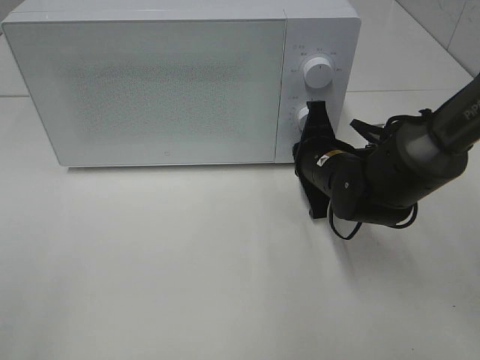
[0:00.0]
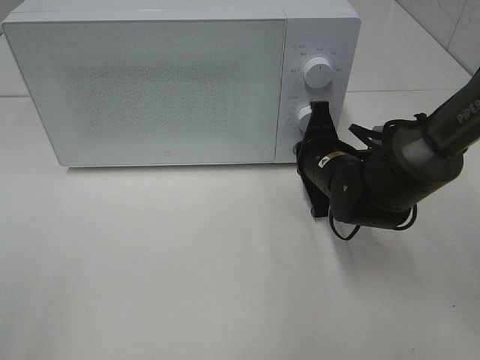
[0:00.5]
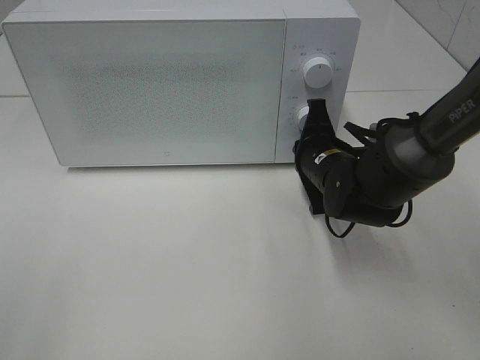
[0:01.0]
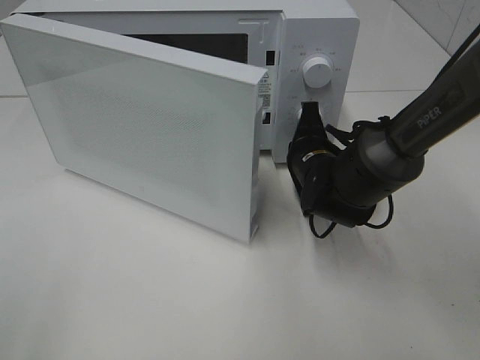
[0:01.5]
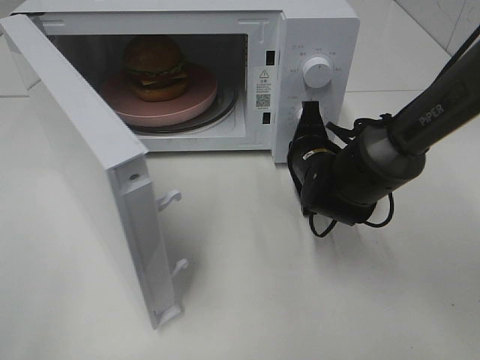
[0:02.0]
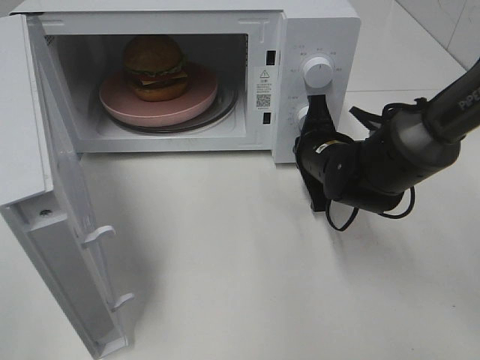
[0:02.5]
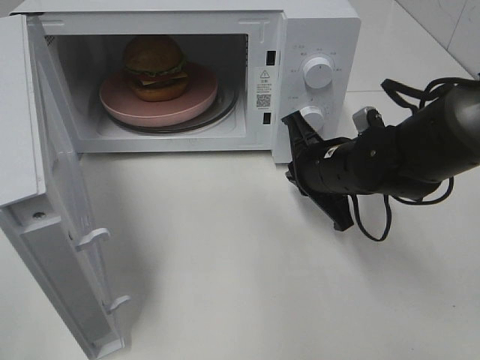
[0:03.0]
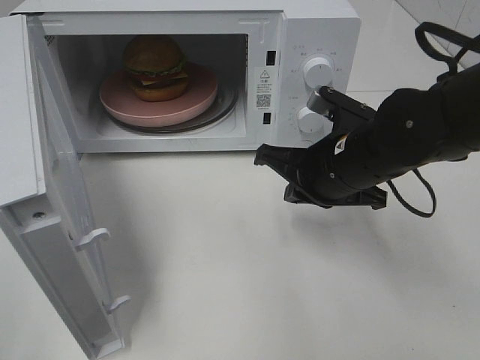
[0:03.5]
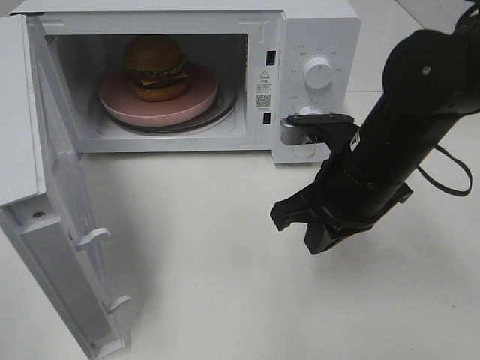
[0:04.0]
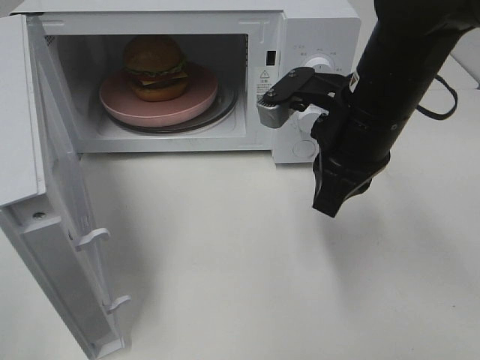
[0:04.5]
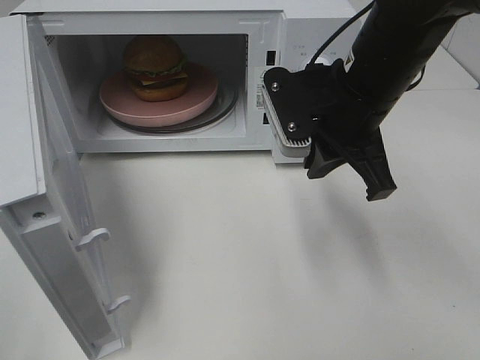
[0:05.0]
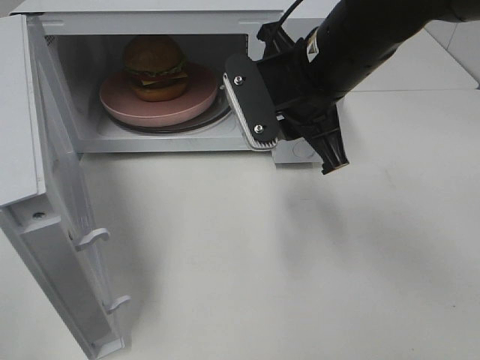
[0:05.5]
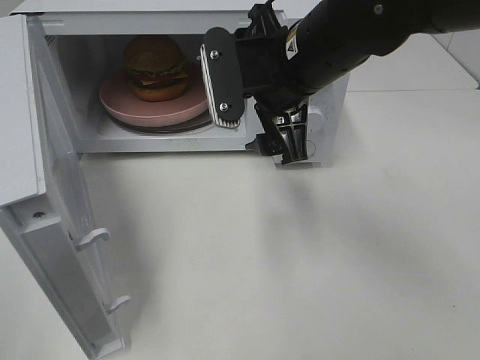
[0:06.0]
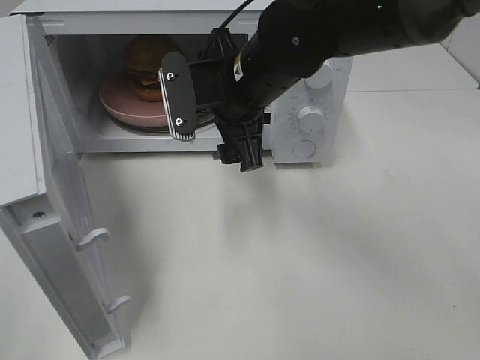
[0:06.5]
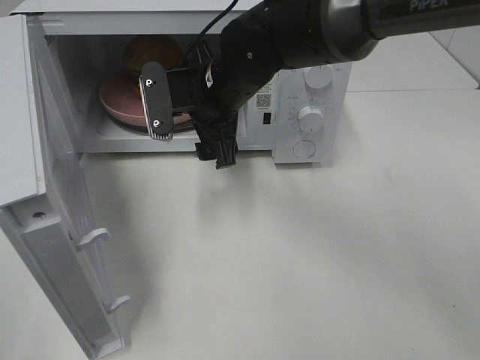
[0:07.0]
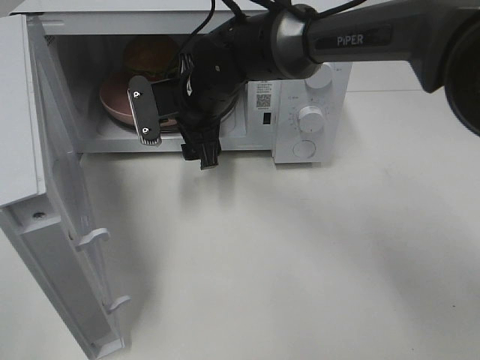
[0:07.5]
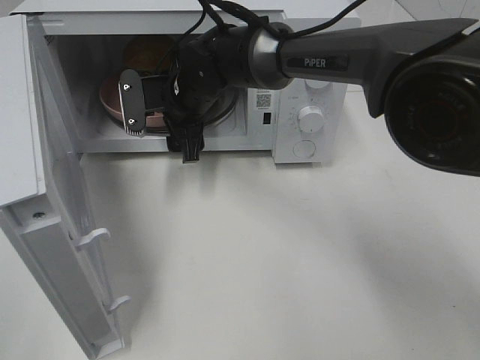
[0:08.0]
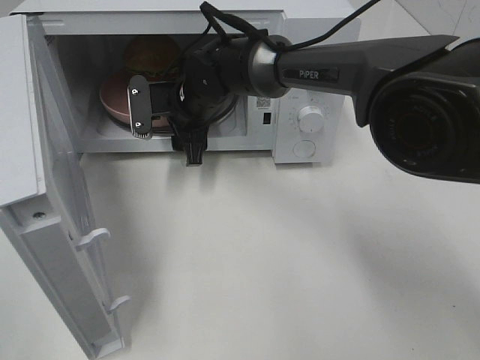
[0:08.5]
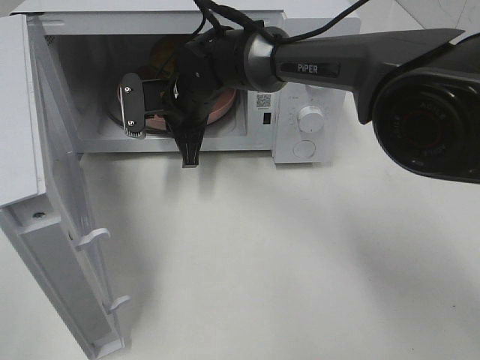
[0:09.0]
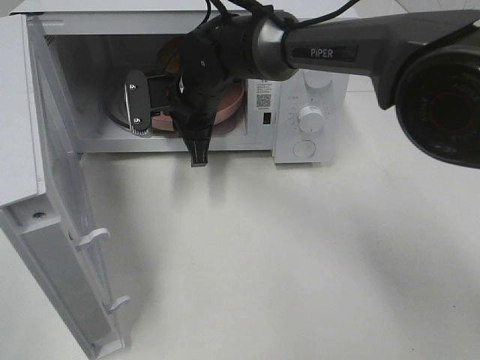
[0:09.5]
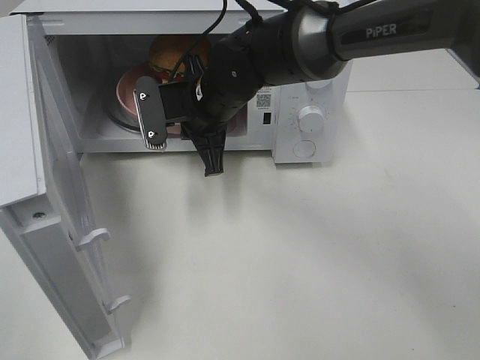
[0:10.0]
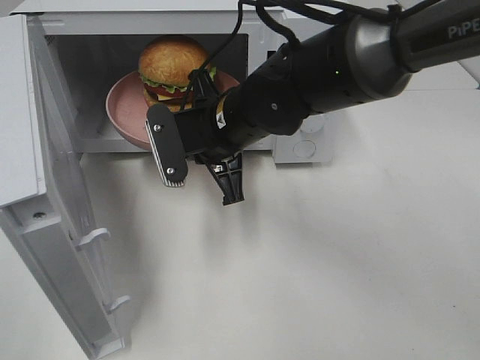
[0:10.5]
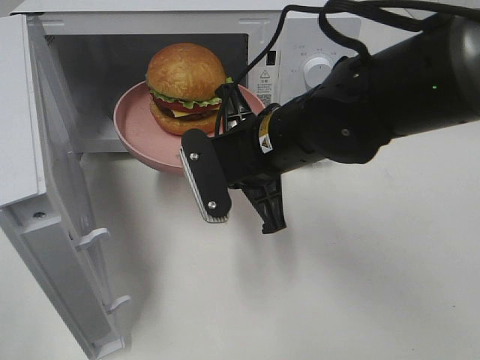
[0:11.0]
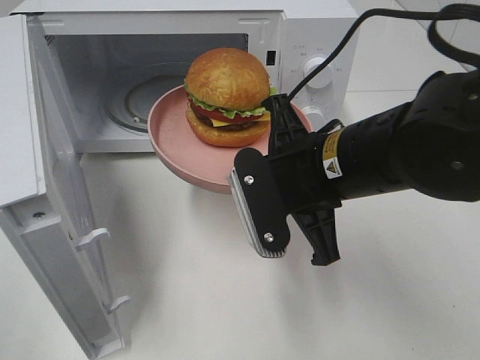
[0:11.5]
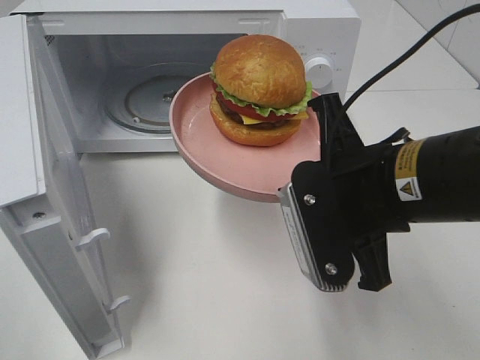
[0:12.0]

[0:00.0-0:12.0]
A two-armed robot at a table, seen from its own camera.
Task of the whole recording: Heat the burger.
Step, 0.0 to 2.5 s: Right hand: press the switch.
Step, 3.0 to 8.5 s: Right hand: grab the plate with the hamburger.
2.0 to 4.0 s: The right gripper is displaced backward and upward by roughly 15 cm.
4.0 to 6.0 s: The right gripper travels upward, to the left and forward by about 10 cm, and opens up.
6.0 to 8.0 s: The right gripper heads forward, to the left and downward, covering approximately 20 cm.
8.0 to 10.0 s: The right gripper moves some 5 cm, and closes up.
10.0 to 12.0 s: The right gripper heads backward and to the right, covering some 25 cm.

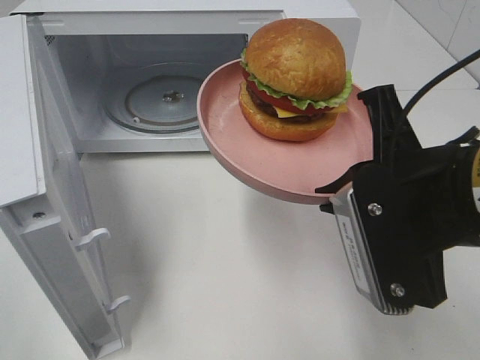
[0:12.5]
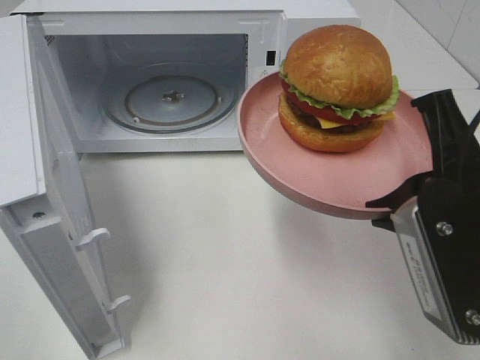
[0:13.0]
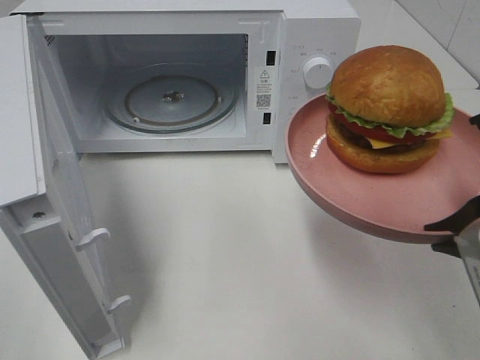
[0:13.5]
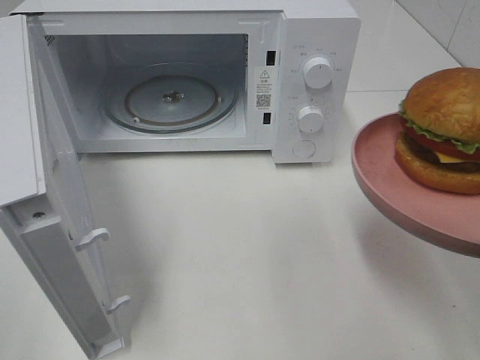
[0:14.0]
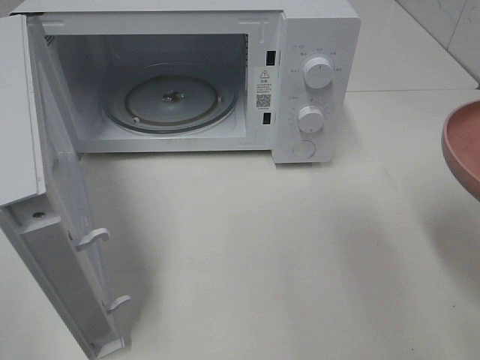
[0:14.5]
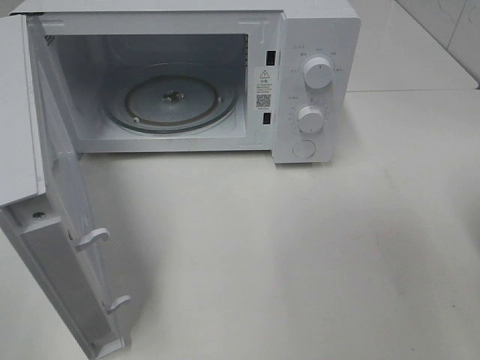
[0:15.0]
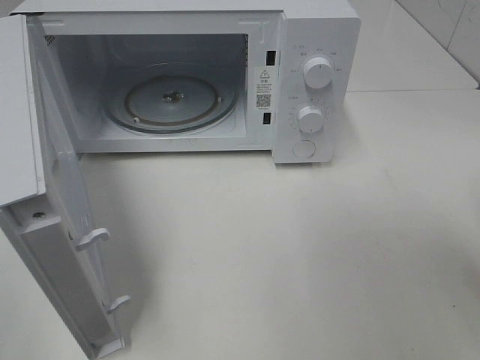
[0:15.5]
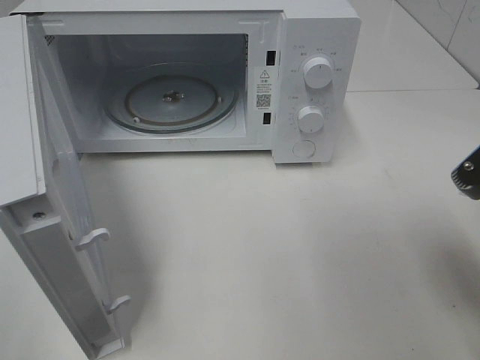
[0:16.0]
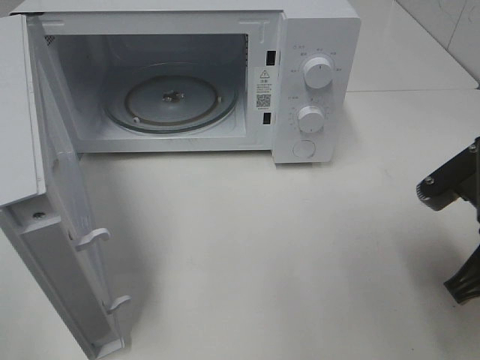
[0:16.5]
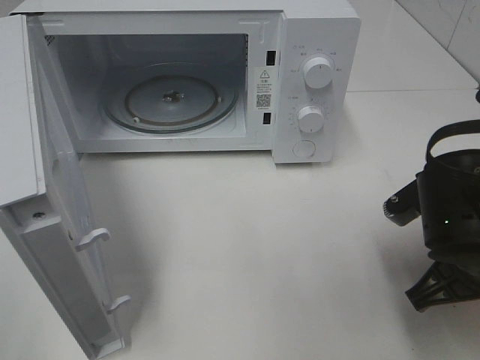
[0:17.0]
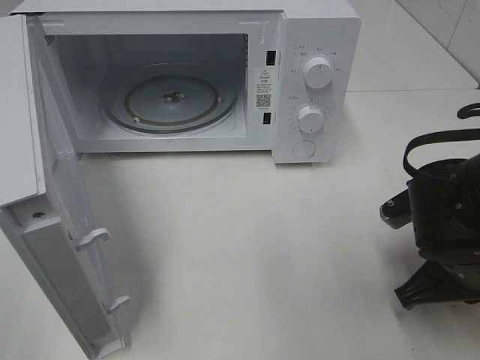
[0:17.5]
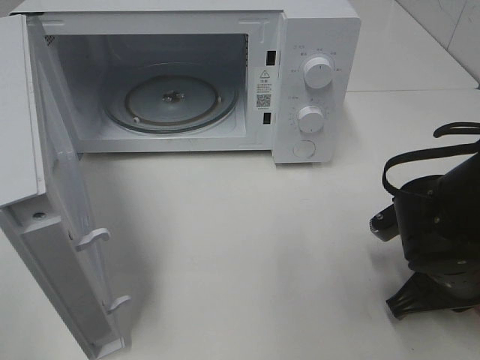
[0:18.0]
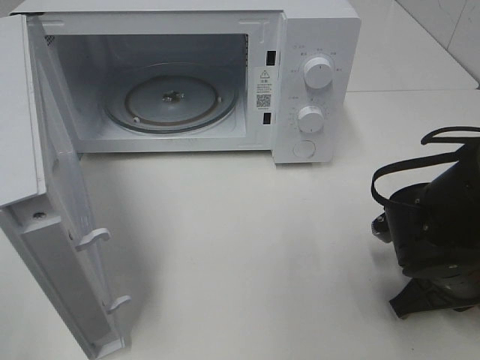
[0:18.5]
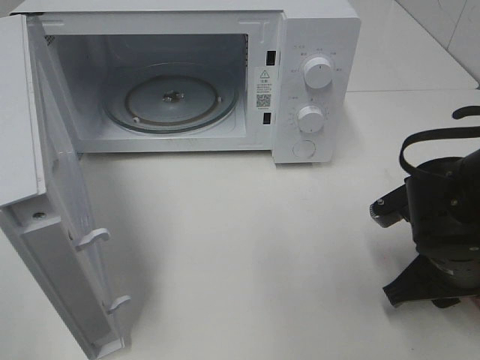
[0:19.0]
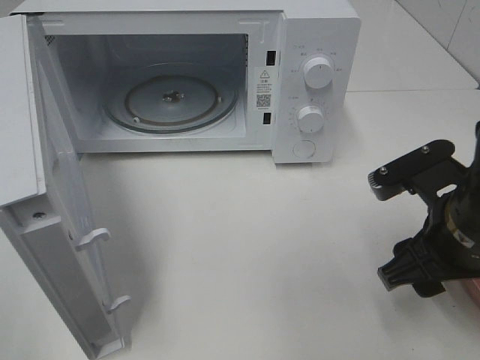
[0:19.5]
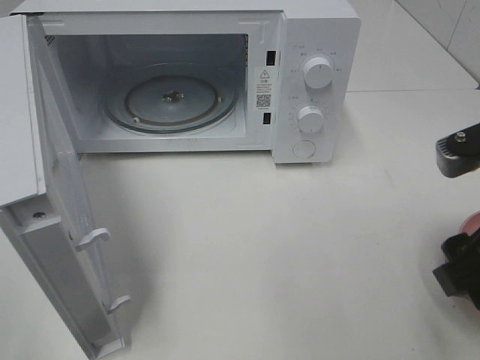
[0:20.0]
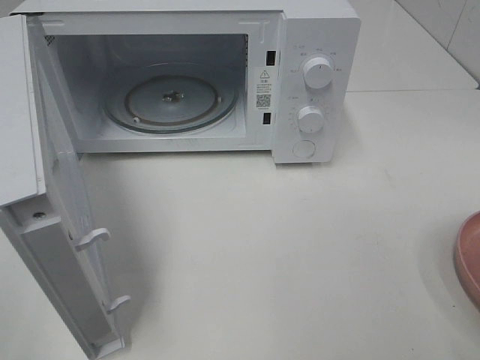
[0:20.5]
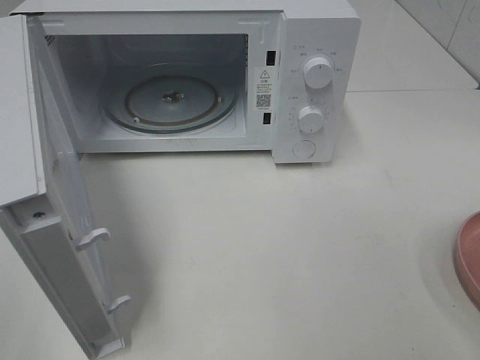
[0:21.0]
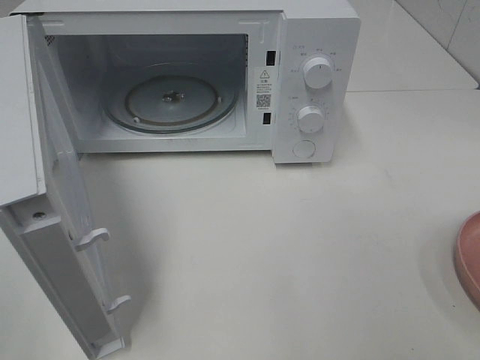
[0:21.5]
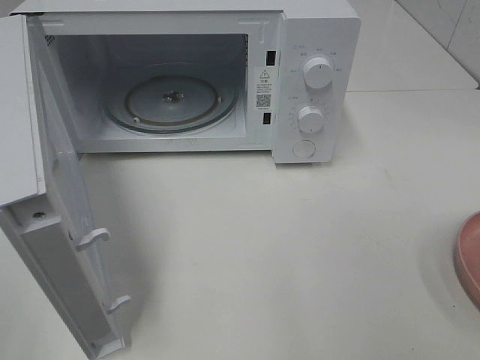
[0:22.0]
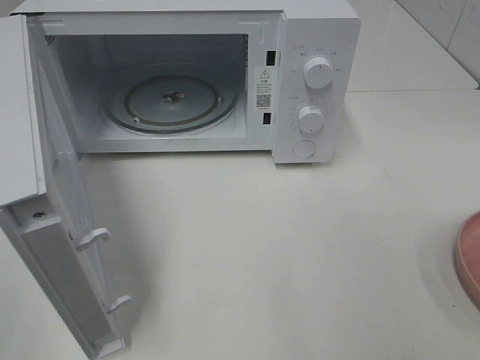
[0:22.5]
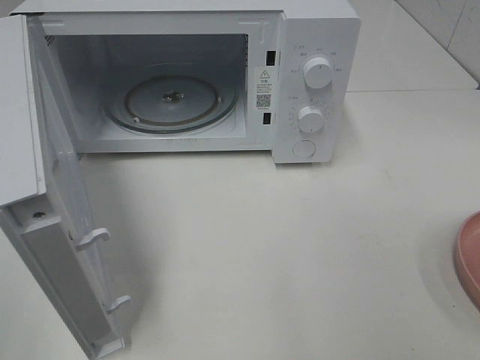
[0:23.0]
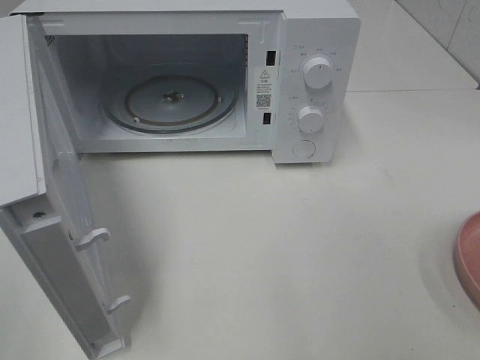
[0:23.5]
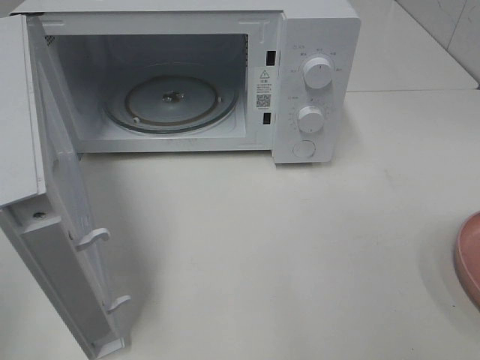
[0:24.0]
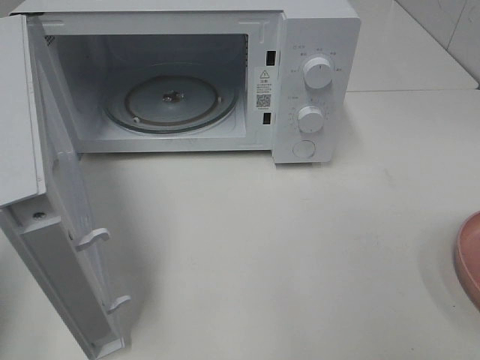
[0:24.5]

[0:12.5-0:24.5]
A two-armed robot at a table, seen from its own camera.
Task of the whole recording: Heat the burger.
Step, 12.5 to 18.5 s: Right hand: place the plate on the table.
12.5 to 14.5 s: The right gripper moves to the right and backward, some 10 cm.
14.5 to 16.5 s: The right gripper travels downward and forward by some 10 cm.
16.5 to 18.5 s: The right gripper is displaced downward by about 10 cm.
18.5 to 20.5 s: The right gripper goes some 25 cm upward and backward, and opens up.

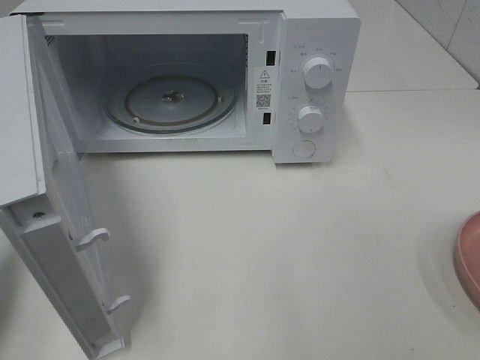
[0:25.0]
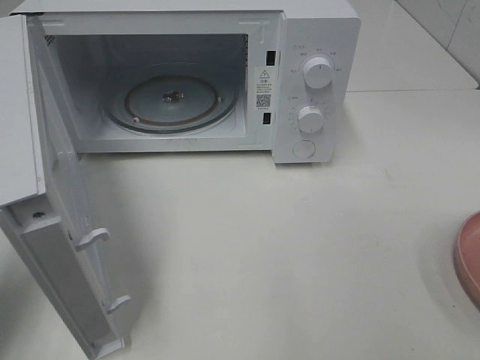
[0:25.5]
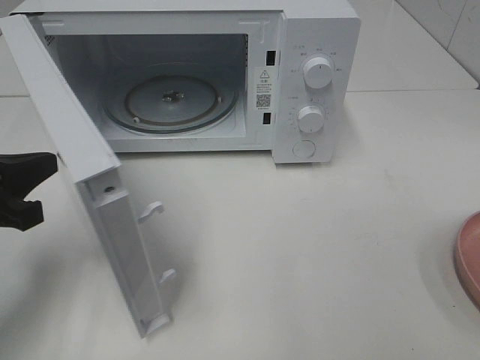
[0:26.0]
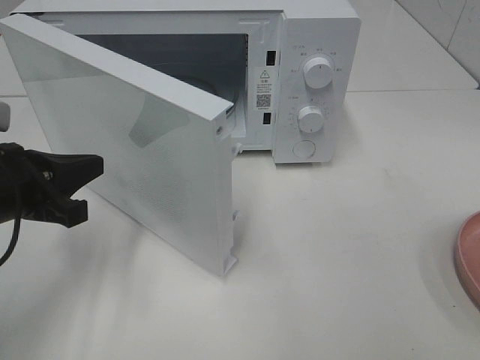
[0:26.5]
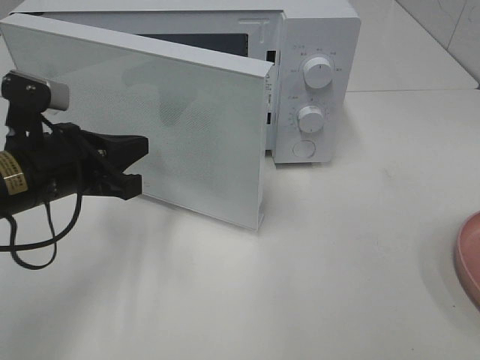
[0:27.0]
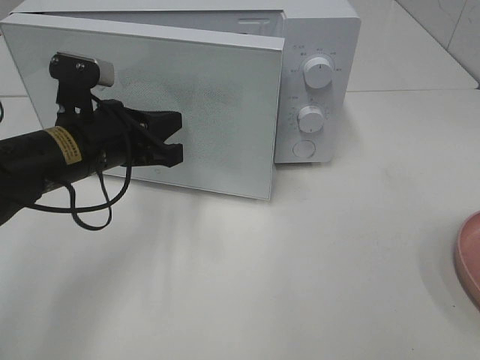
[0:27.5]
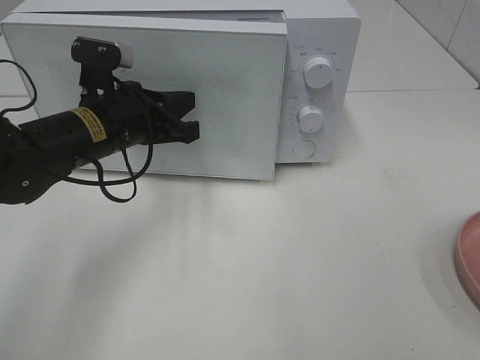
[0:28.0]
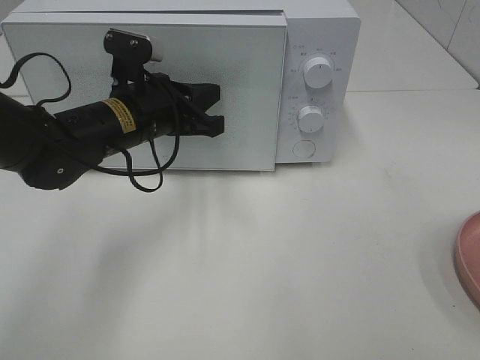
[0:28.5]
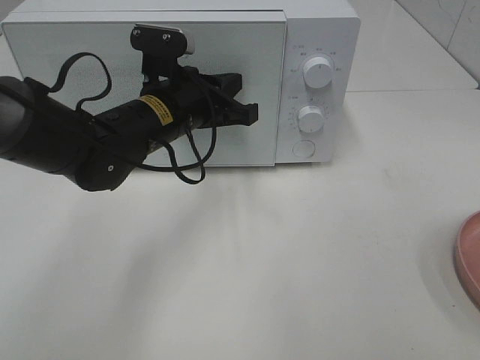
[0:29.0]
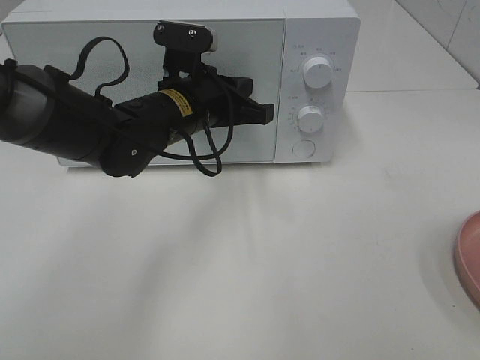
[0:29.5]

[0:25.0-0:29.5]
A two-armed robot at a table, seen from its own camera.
Task of the whole recording: Heat the burger.
25.0 to 27.0 s: The left gripper heads to the right, forward and downward, covering approximately 20 cm.
27.0 to 29.5 s: The left gripper heads to the right and forward, covering some 15 cm.
